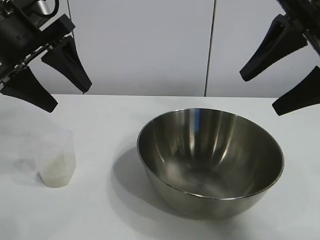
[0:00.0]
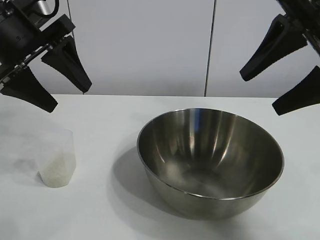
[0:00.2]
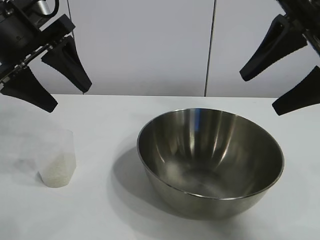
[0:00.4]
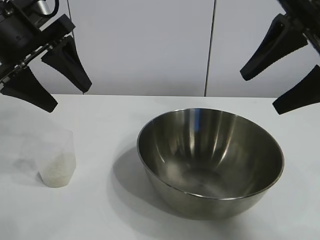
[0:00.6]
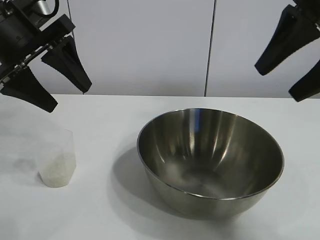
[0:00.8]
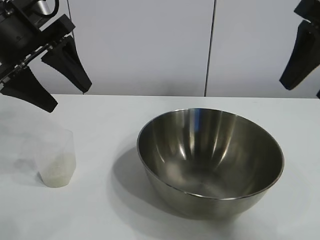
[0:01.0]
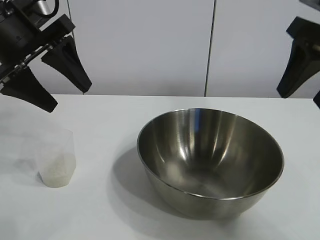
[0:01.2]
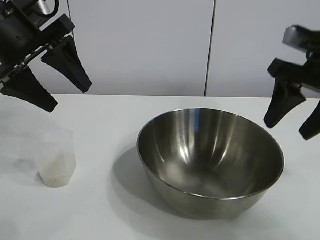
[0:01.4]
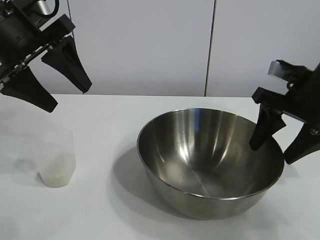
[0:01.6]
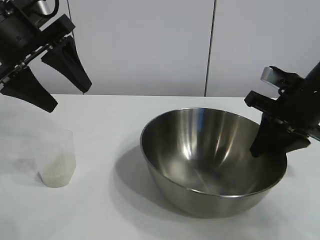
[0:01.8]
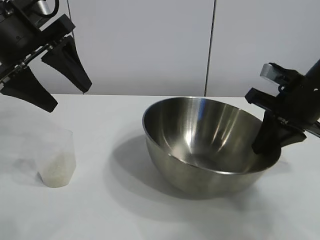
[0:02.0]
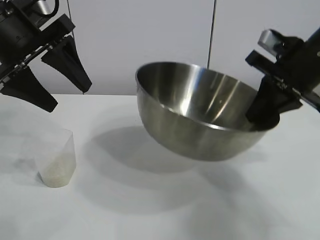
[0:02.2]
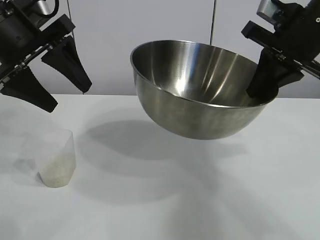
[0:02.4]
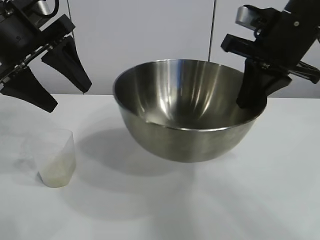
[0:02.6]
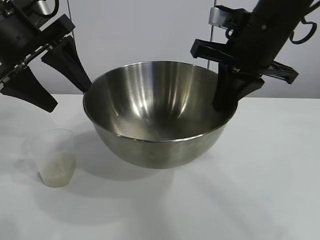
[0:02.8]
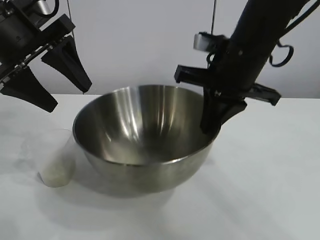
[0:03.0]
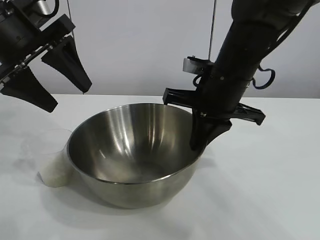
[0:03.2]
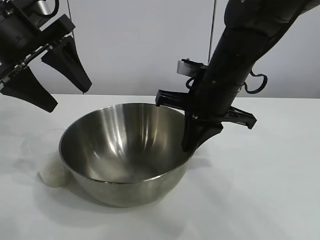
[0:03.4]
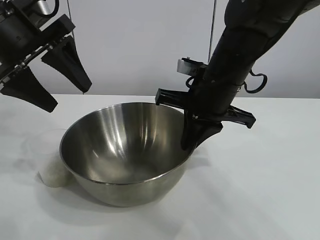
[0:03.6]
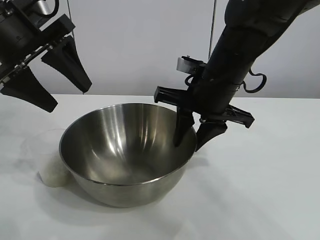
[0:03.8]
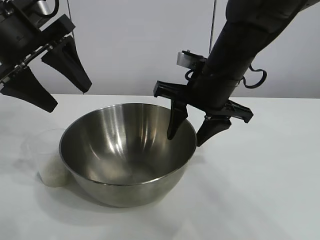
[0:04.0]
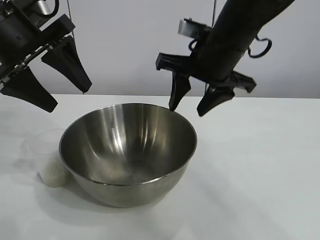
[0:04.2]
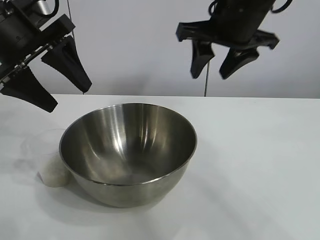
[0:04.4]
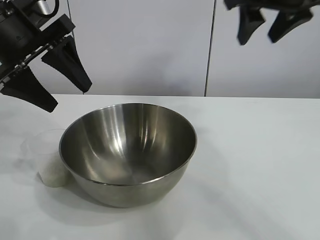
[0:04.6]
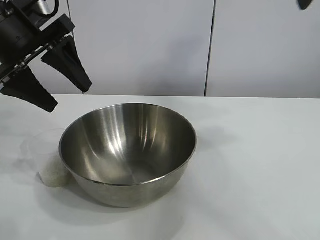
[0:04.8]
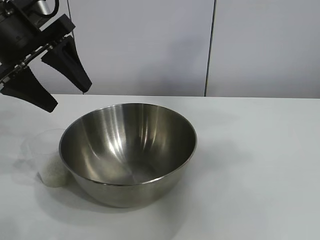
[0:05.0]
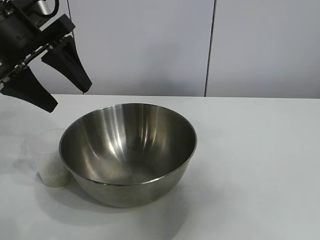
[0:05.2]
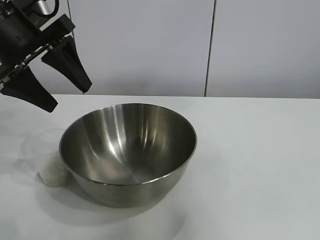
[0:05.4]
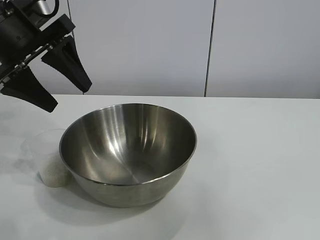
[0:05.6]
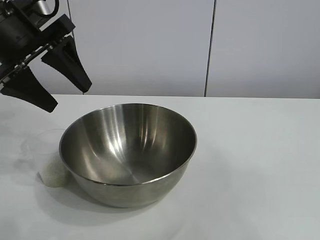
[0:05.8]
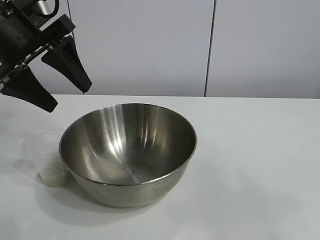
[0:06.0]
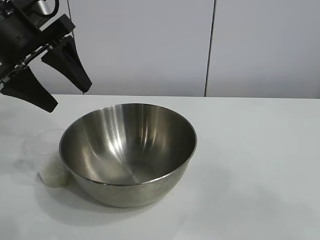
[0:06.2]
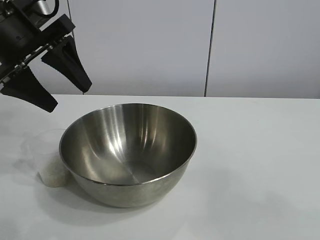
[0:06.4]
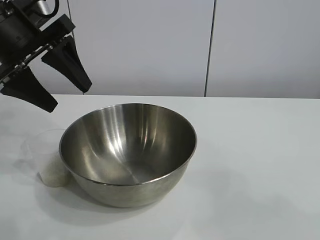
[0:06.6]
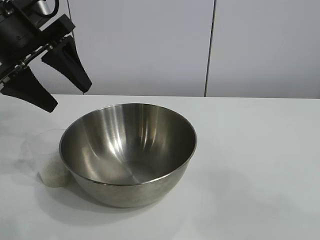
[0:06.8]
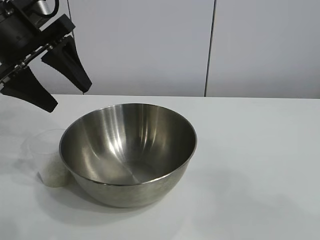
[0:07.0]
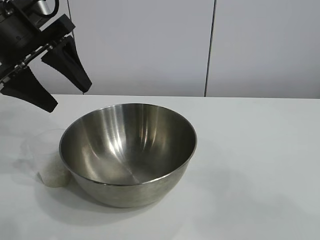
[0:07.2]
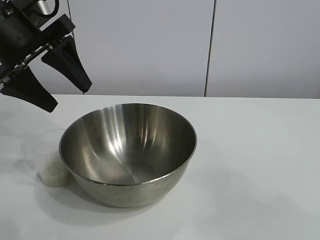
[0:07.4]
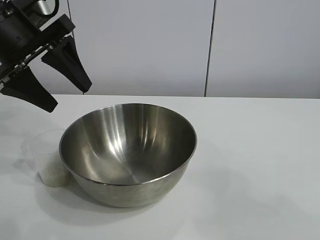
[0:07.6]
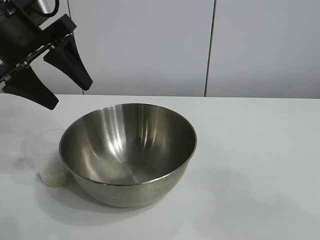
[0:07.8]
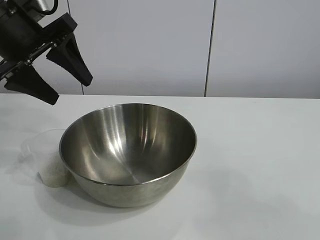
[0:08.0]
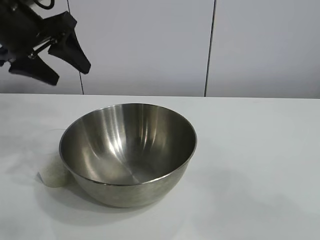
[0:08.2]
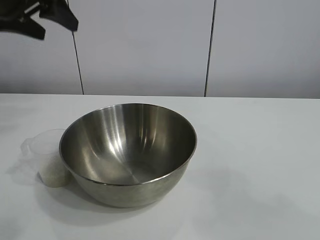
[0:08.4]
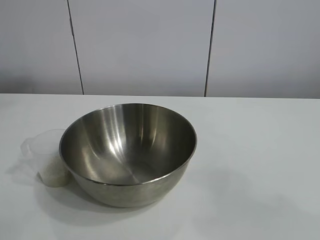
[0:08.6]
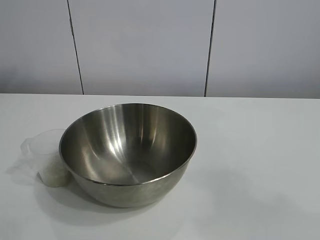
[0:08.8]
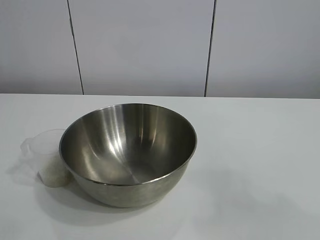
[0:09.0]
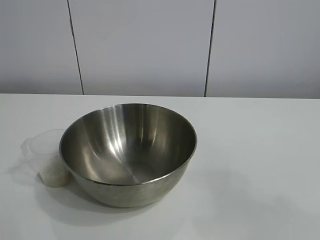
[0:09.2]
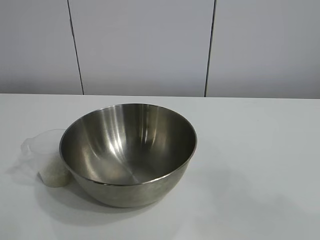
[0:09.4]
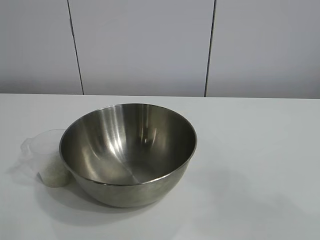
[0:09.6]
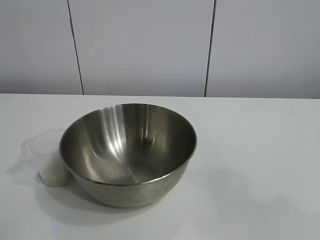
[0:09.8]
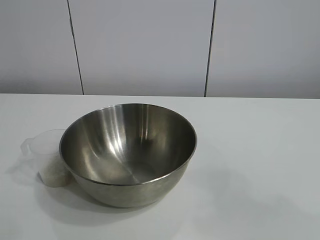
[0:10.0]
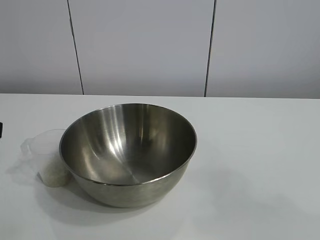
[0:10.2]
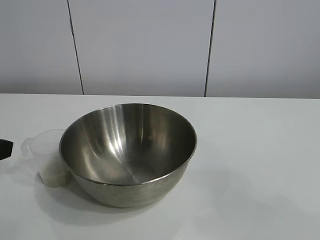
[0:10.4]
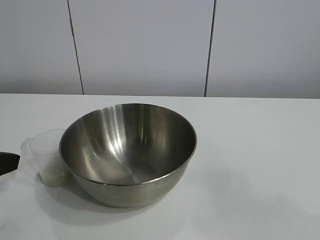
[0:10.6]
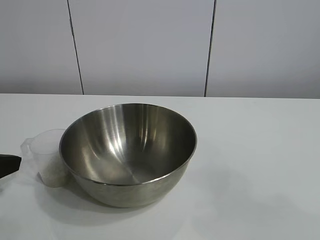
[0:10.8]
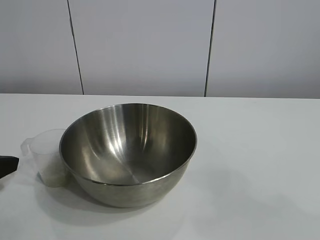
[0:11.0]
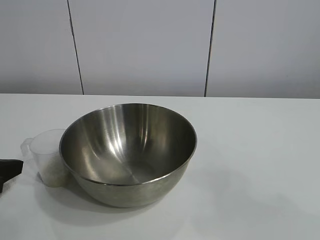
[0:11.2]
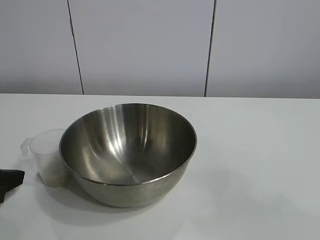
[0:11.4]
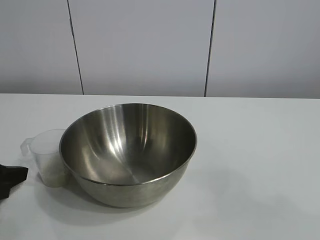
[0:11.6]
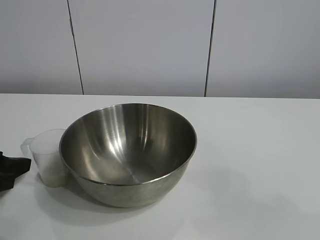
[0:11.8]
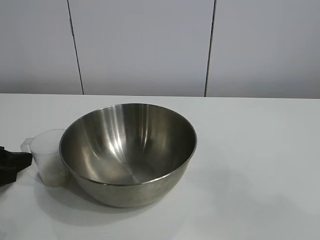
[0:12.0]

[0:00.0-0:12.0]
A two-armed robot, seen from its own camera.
Task of the whole recording: the right gripper grasp the rice container and place it in the center of the table, the left gripper grasp the rice scoop and pour the rice into the rice container.
Step, 0:00.6 to 0:03.6: Move the bowl in the center of view with right gripper.

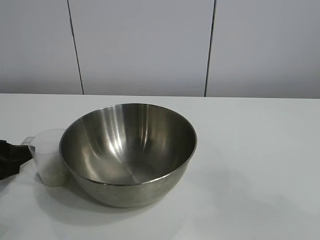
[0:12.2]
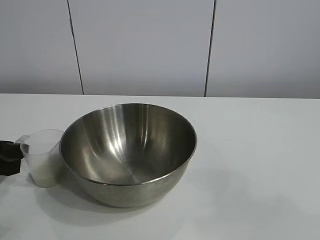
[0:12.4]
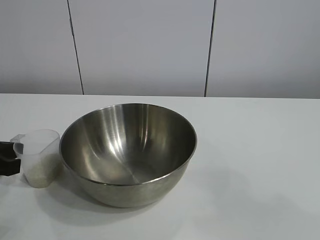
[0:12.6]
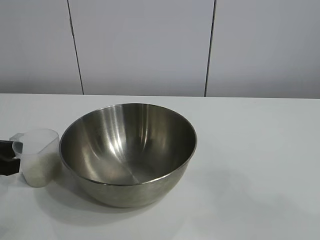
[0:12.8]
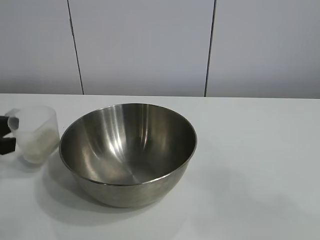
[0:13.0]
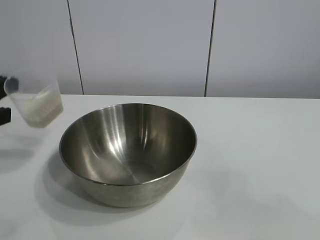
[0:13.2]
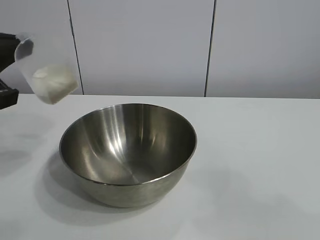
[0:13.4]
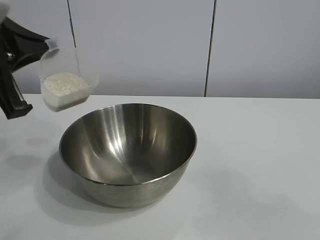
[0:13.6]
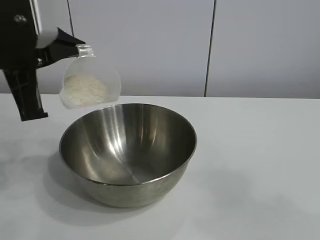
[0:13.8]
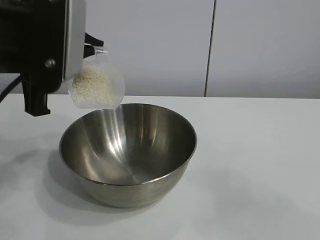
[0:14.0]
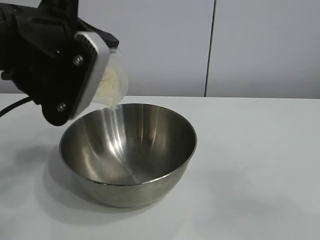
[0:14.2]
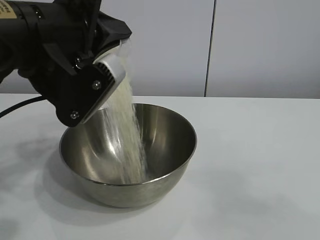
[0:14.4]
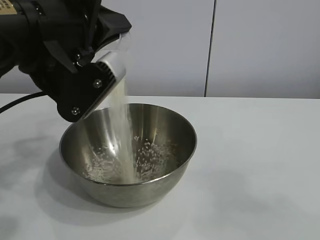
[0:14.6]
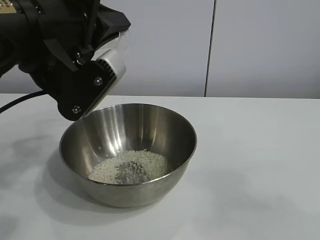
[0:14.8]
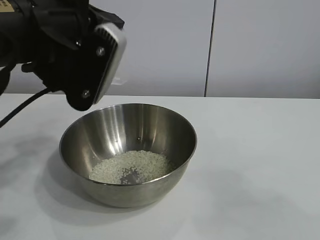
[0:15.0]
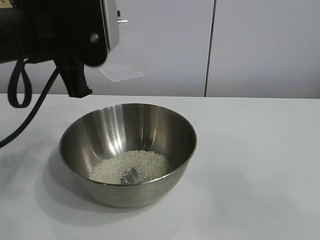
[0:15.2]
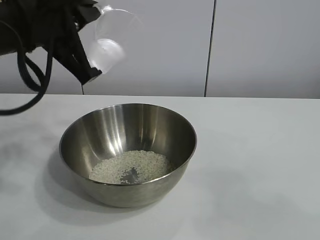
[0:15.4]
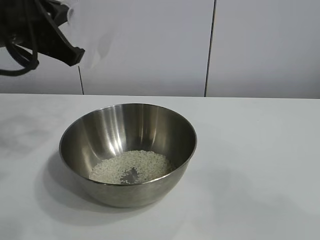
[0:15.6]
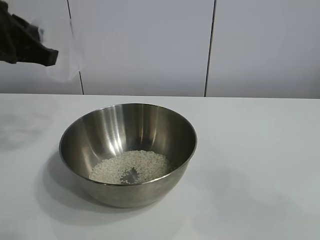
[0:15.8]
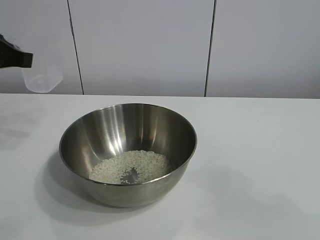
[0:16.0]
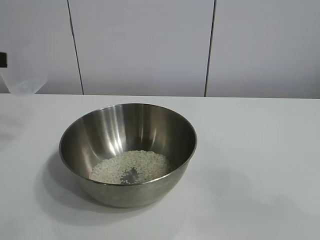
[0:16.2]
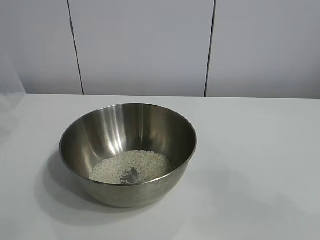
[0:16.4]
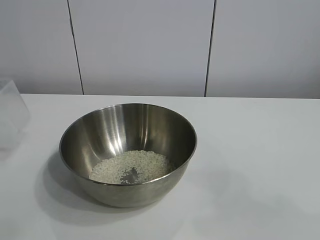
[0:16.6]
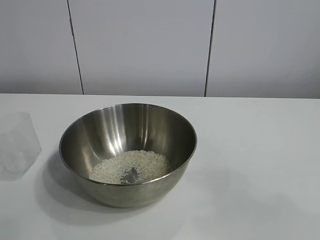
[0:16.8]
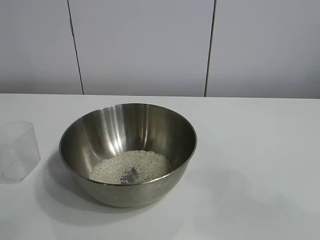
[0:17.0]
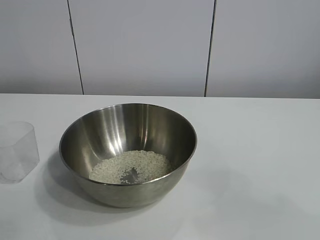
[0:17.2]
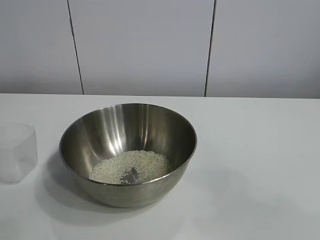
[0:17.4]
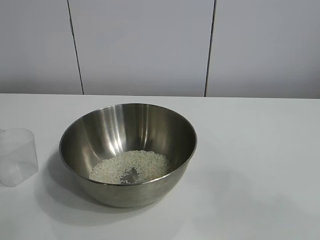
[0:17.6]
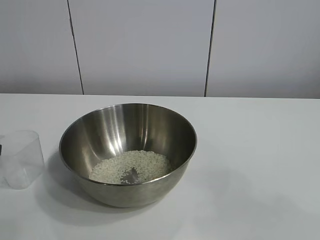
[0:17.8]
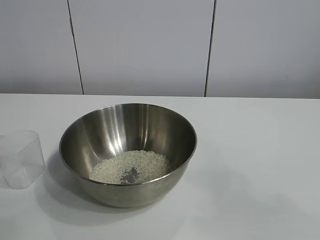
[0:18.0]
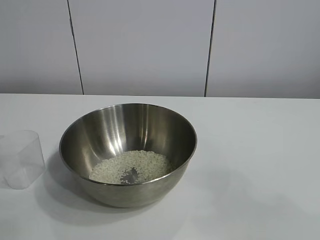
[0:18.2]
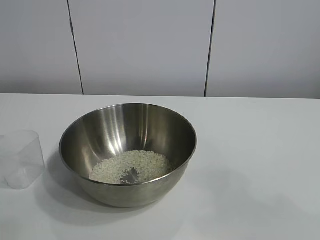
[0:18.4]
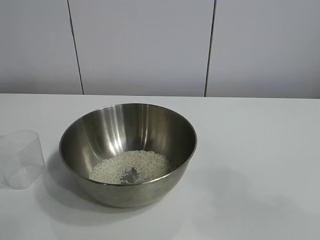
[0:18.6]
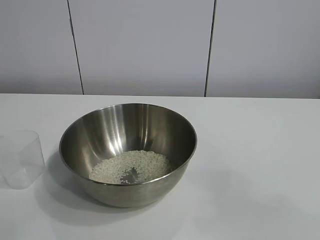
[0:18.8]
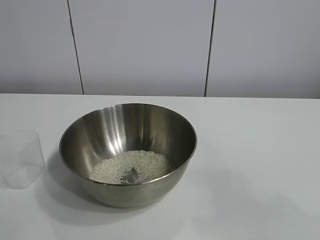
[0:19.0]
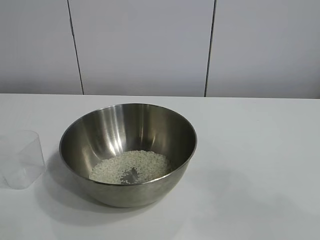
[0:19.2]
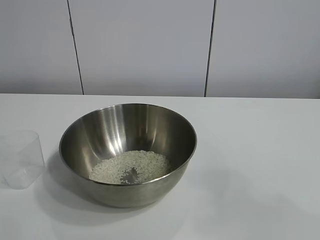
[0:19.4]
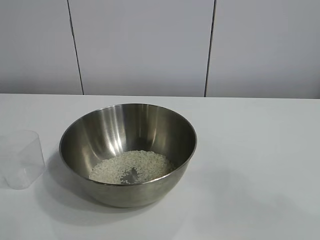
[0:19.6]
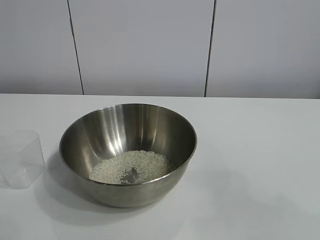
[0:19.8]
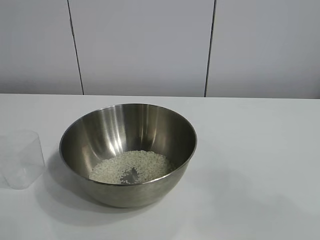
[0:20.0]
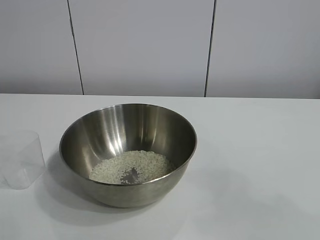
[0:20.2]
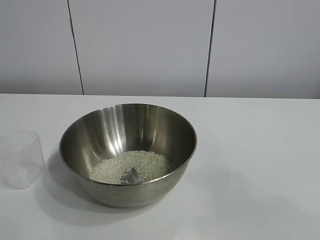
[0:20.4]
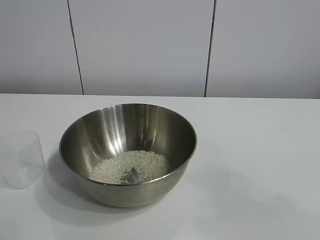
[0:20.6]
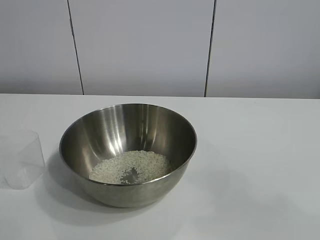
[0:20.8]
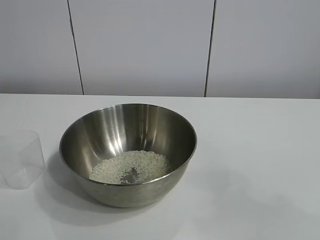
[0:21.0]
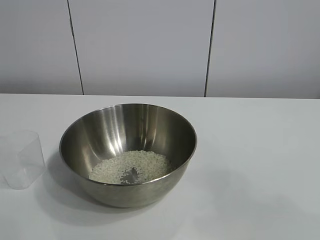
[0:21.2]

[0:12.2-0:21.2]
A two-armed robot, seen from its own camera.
Task of the whole recording: the right gripper grasp the rice container and place it in the center of the table, the left gripper grasp the rice scoop and pour the rice into the rice container.
Step, 0:12.6 to 0:14.8: Pour the rice from the cup into the bowl with the left gripper.
Step, 0:15.0 to 0:17.6: Place the cup on the table with the left gripper.
